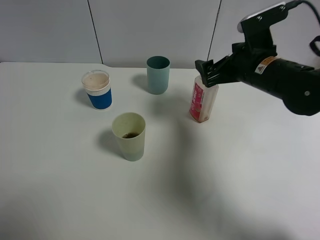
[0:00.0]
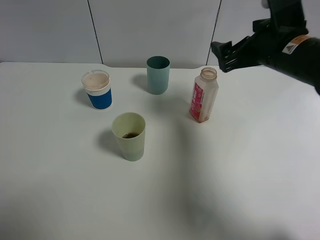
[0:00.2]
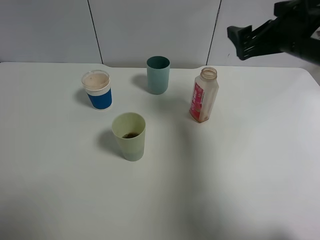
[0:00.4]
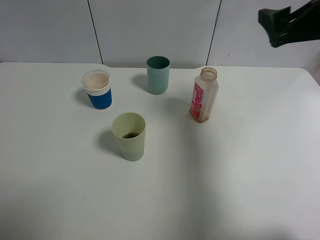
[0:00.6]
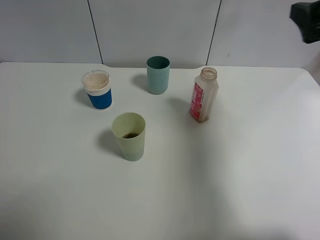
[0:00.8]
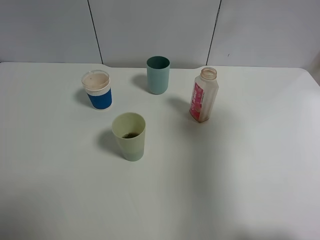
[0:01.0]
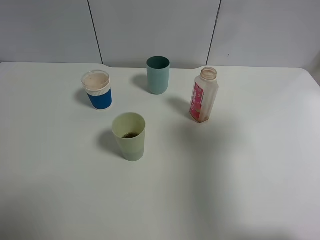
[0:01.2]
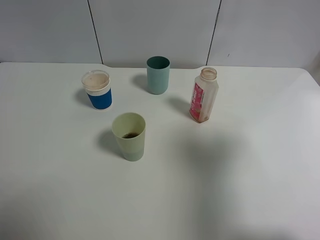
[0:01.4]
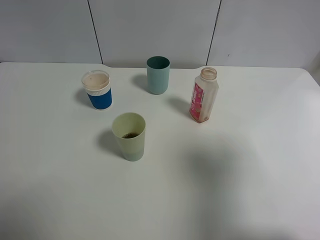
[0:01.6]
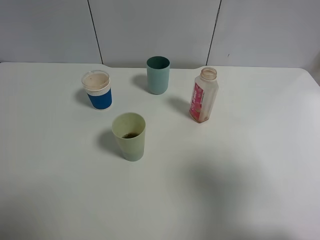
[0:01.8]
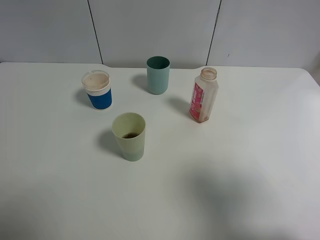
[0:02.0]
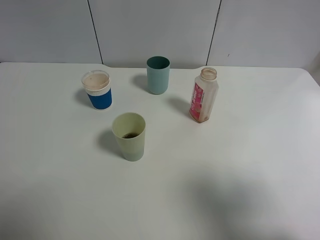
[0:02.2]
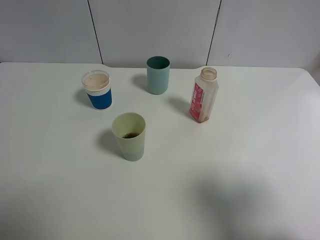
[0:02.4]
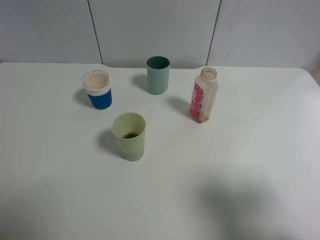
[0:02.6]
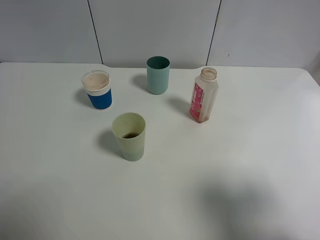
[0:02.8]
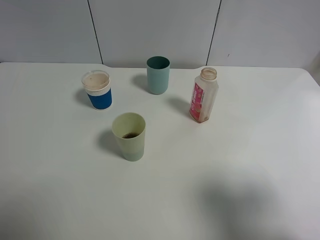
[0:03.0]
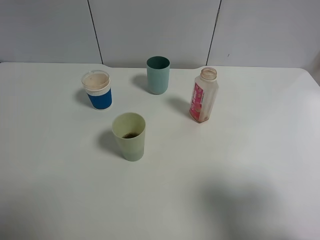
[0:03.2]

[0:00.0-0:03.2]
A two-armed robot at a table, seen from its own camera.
Task of the whole recording: use a gripper to hold the bottle of the drink and pour it into a random cup.
0:00.0 to 0:01.6: The right gripper travels backward, upward and to the right by about 30 cm.
0:01.6 to 0:03.2: The right gripper travels backward by some 5 cm.

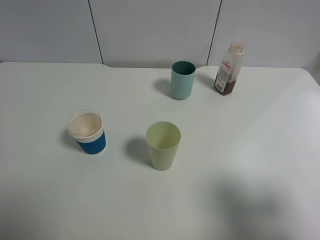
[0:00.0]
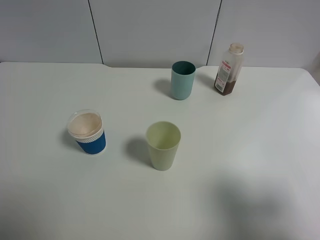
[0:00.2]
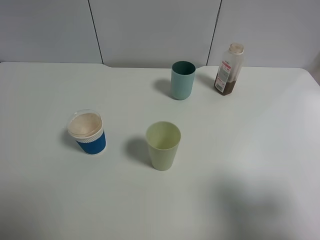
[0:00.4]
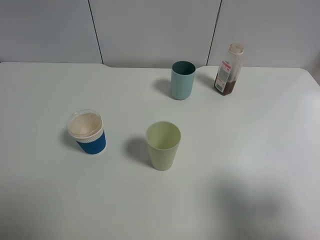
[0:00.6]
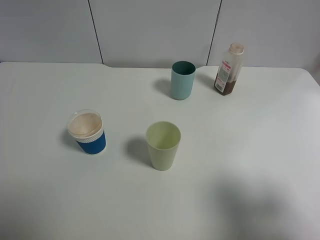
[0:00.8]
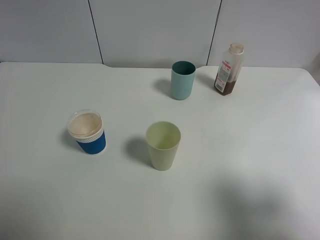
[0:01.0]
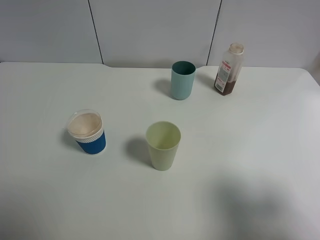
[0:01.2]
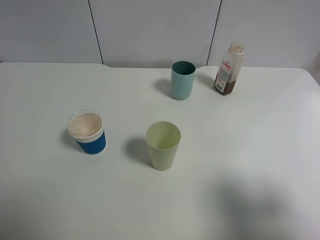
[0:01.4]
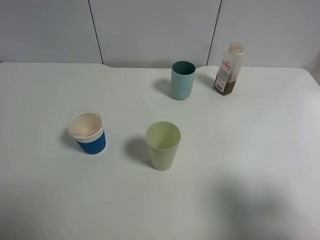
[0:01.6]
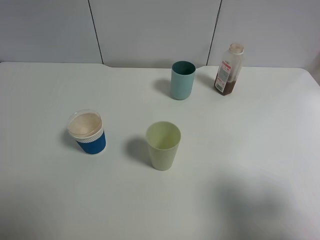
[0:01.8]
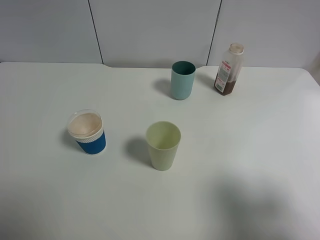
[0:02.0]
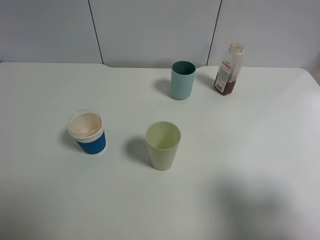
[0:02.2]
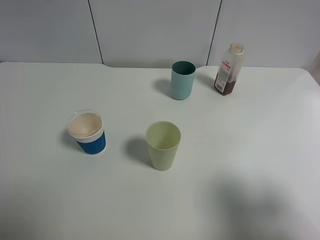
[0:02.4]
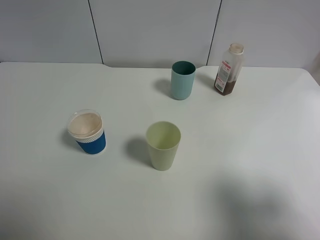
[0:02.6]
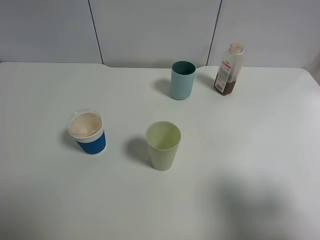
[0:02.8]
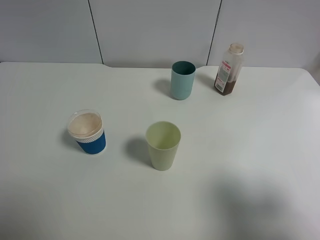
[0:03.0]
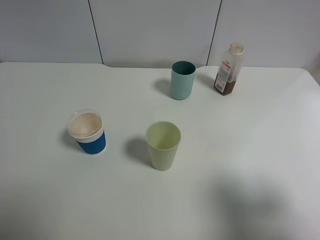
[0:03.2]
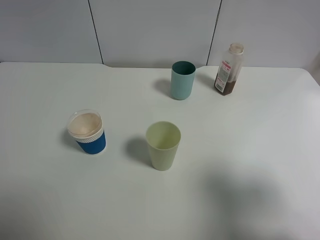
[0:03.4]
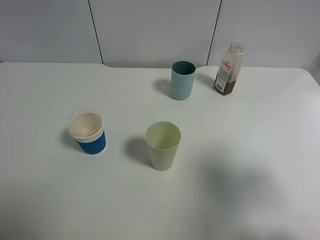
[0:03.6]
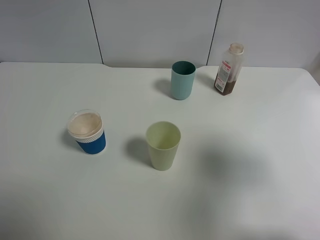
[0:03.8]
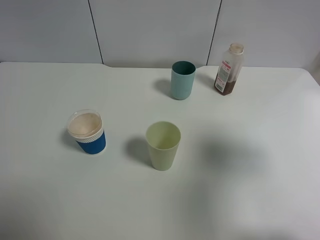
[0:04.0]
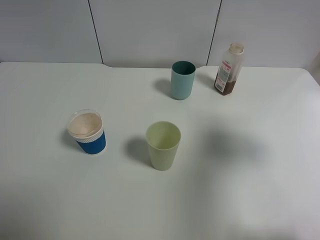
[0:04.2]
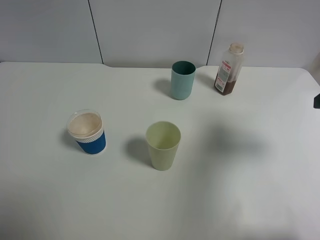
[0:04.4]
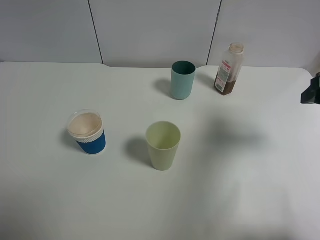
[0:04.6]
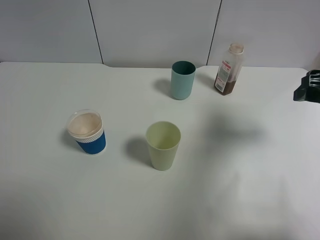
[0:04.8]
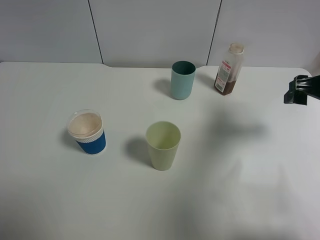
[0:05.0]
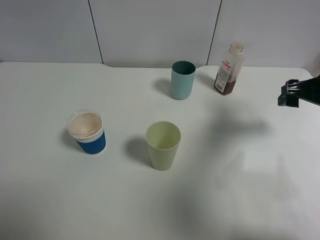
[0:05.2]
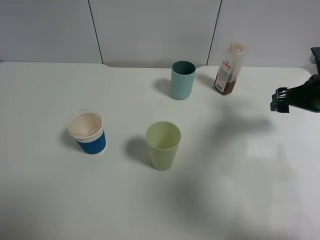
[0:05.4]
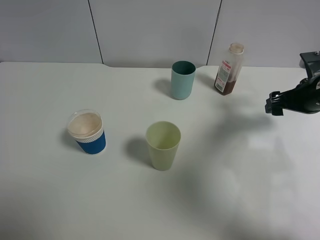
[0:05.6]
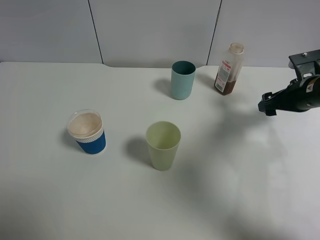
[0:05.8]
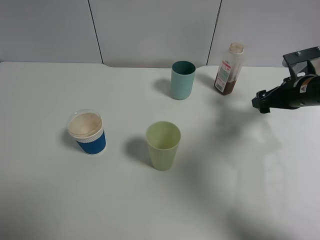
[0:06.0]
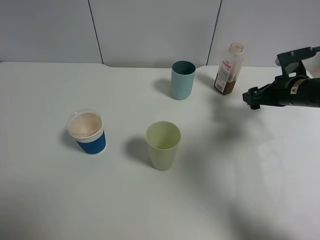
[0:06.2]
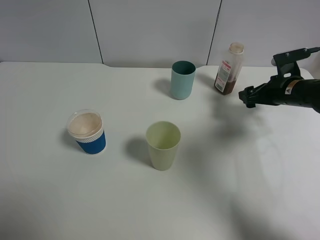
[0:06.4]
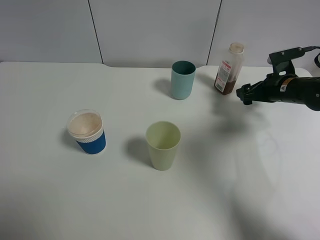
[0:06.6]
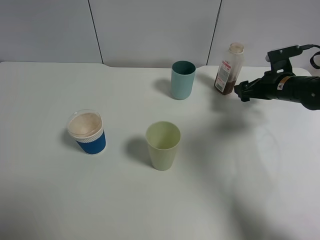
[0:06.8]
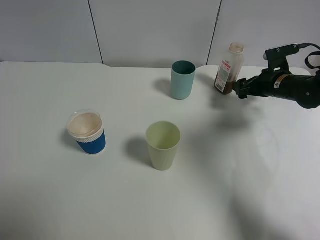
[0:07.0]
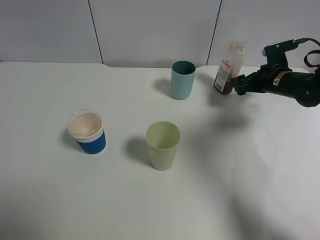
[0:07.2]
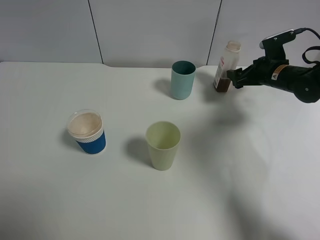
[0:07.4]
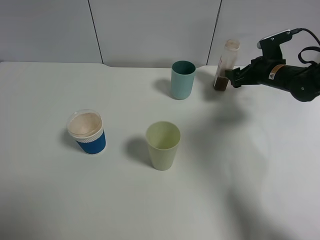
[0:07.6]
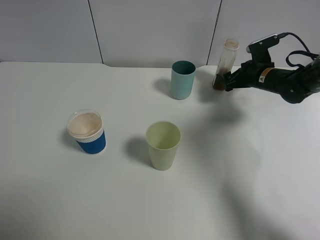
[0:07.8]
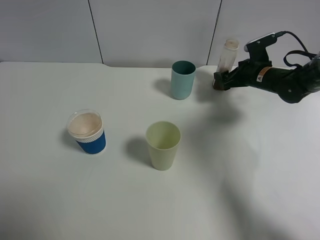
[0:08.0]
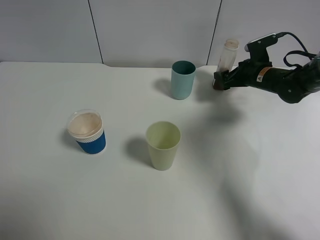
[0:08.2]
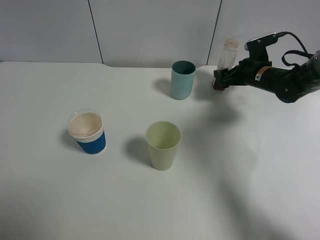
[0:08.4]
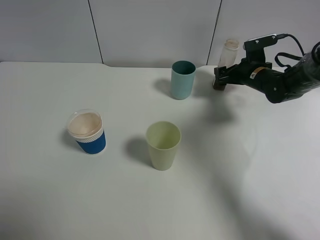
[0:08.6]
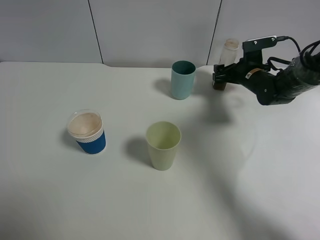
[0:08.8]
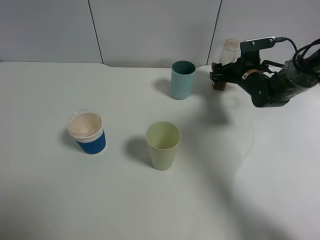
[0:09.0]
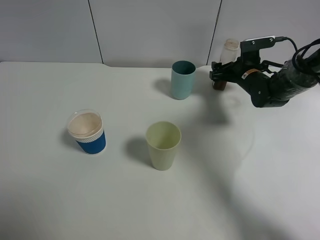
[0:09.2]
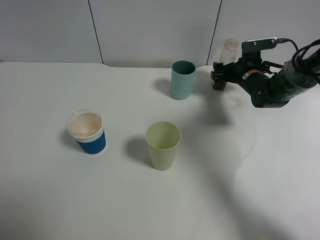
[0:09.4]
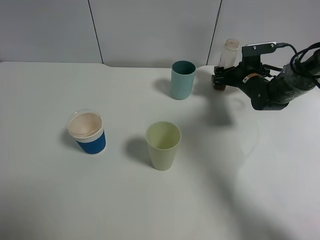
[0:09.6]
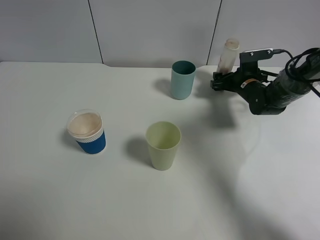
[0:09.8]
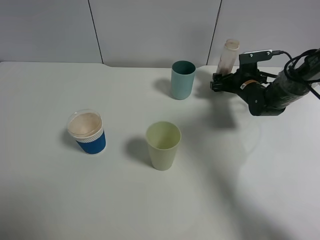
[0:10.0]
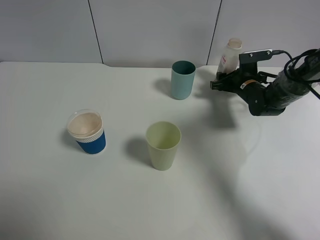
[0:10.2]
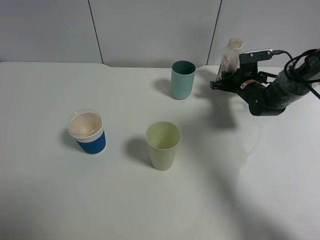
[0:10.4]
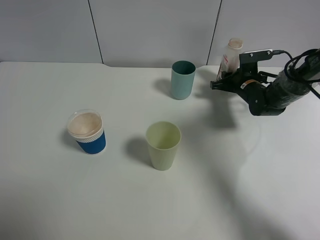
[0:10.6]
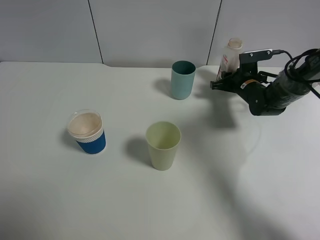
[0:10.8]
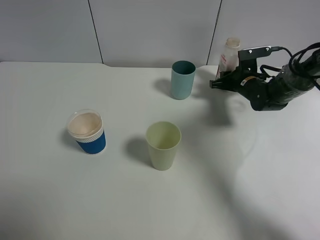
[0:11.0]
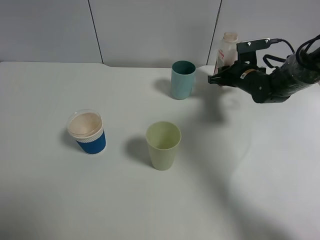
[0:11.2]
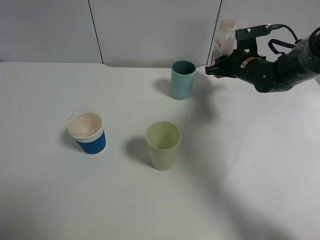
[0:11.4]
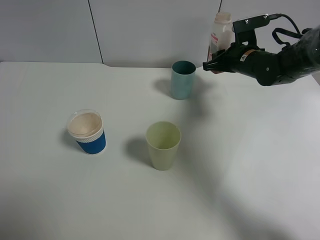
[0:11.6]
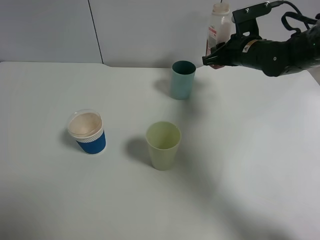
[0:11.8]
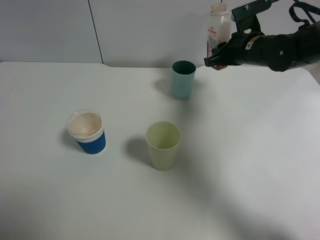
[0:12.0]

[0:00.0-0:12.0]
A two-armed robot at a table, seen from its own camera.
Task of the whole recording: use a gripper to hold the bottle of the drink and pour it into a random cup.
Step, 0:00.0 to 0:10.4: Grasp the cranberry juice bottle with the right gripper.
0:00.0 to 0:03.0: Both grippers stay put.
0:03.0 to 0:04.4: The right gripper shifts roughly 15 cm forward.
0:04.4 to 0:06.0: The right gripper moves forward and downward, approximately 20 cm.
0:06.0 to 0:07.6: The right gripper travels forward by some 10 cm.
0:07.6 to 0:09.0: The right gripper shifts some 5 cm to the left.
0:09.0 to 0:10.4: The right gripper closes.
0:10.4 to 0:12.0: The right gripper is displaced upward by roughly 15 cm.

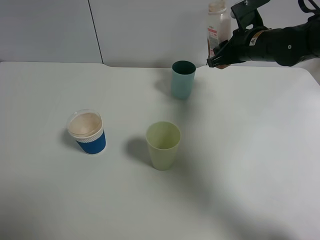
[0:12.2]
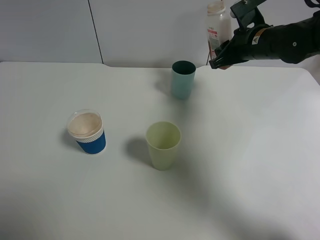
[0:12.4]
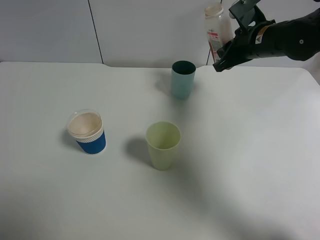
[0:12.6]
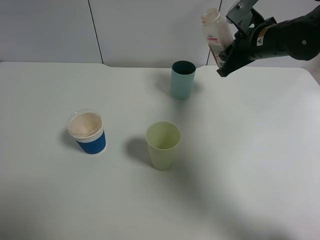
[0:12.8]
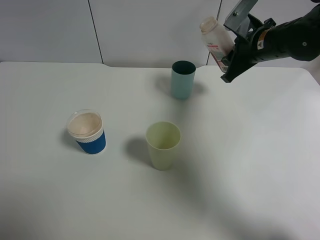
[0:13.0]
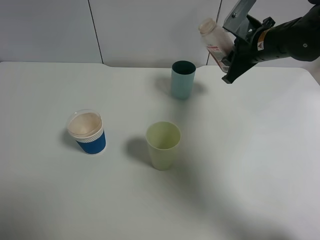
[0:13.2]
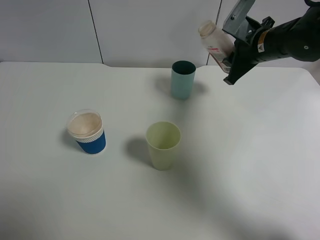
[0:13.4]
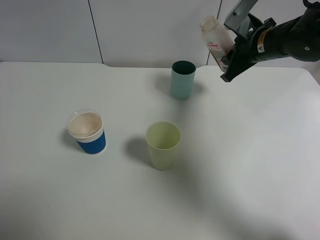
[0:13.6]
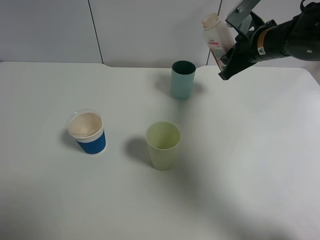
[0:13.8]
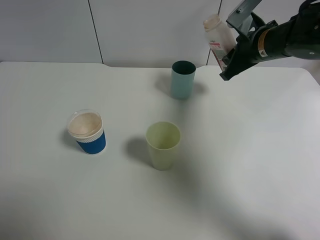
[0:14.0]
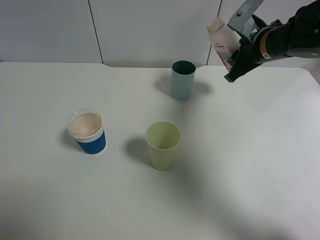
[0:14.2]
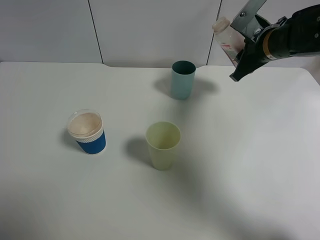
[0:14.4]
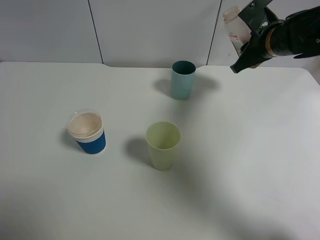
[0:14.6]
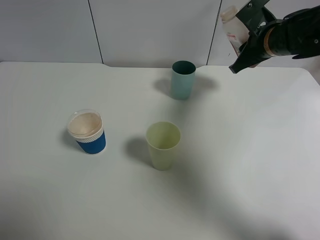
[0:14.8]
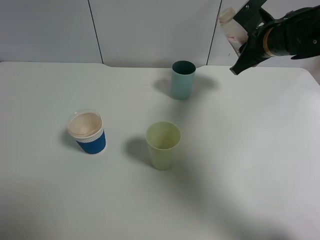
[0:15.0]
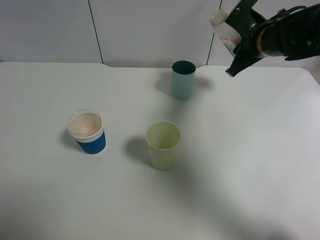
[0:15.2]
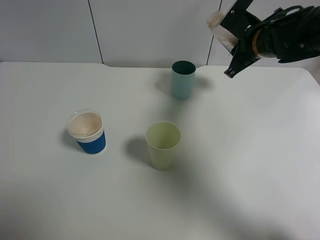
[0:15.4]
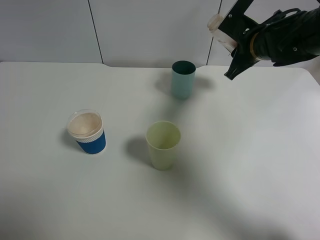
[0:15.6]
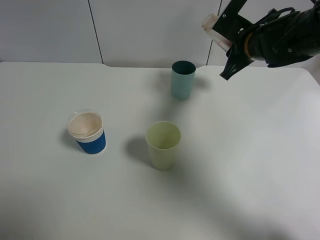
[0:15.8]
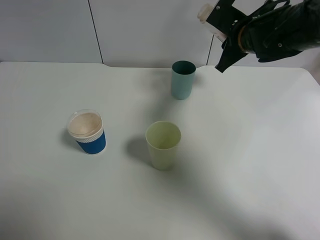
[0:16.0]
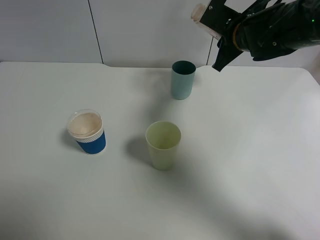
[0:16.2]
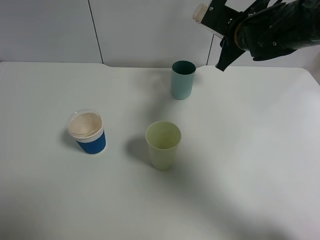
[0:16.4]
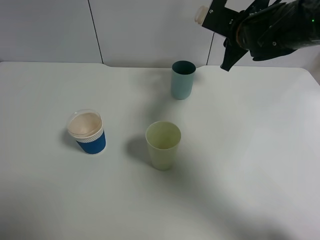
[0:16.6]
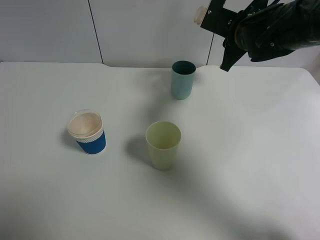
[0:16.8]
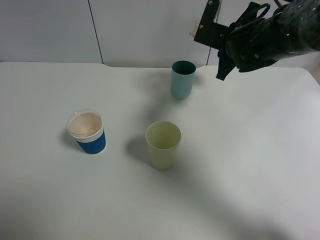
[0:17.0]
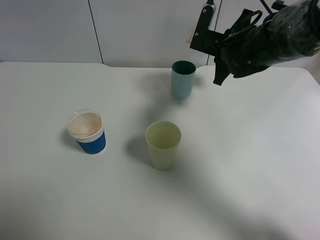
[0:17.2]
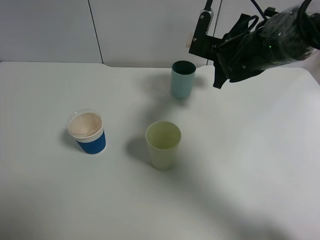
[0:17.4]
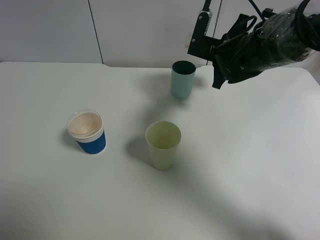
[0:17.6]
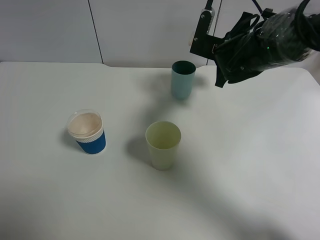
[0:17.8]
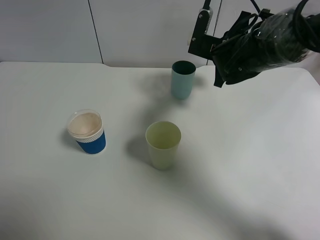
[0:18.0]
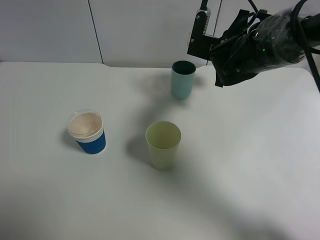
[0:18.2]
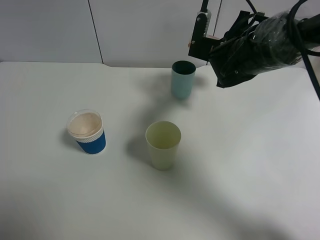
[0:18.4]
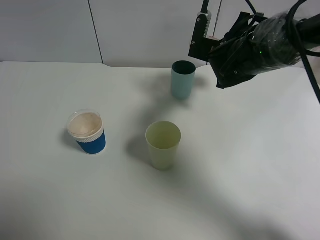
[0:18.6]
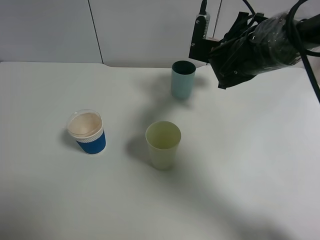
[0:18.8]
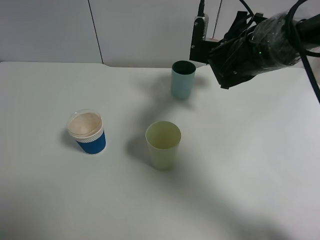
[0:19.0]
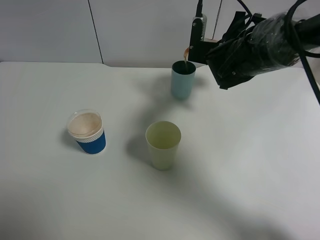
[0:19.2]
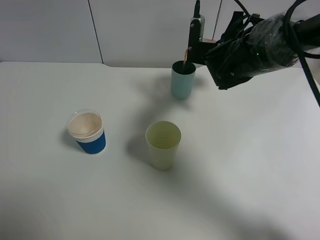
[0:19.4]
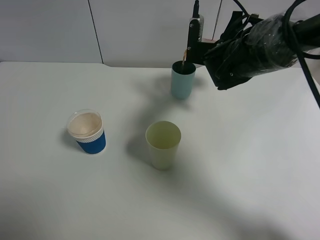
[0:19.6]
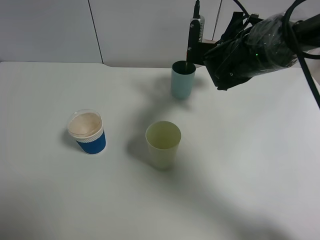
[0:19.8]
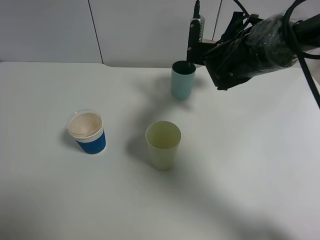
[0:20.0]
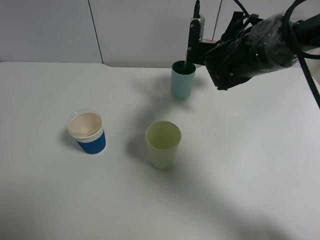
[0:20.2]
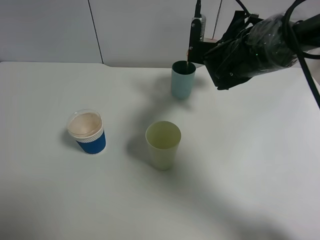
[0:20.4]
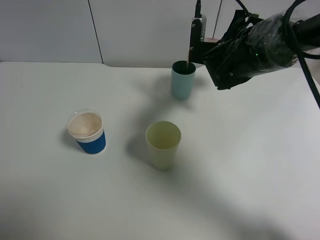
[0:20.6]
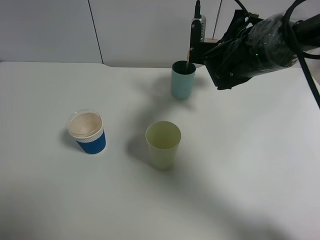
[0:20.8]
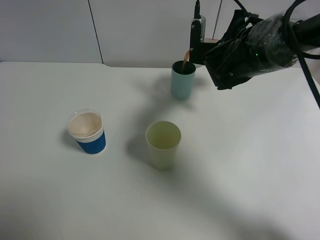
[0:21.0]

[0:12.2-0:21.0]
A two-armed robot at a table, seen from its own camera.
Task of the whole recording: use a gripper to hold the bottle of the drink and pour it into a random cup.
0:13.6 to 0:15.2: The grippers move only a little.
0:16.6 to 0:18.0: The grippers make only small movements.
0:18.0 to 0:19.6: The grippers stay close to where they were, moving slightly.
0:19.6 to 0:21.0: The two grippers keep their place.
